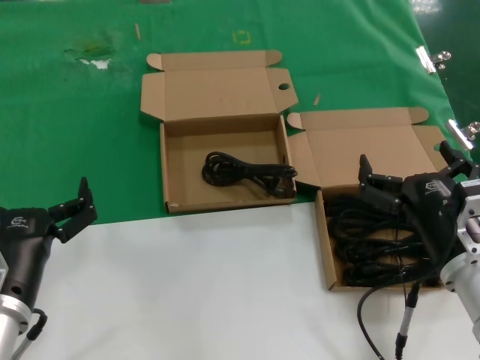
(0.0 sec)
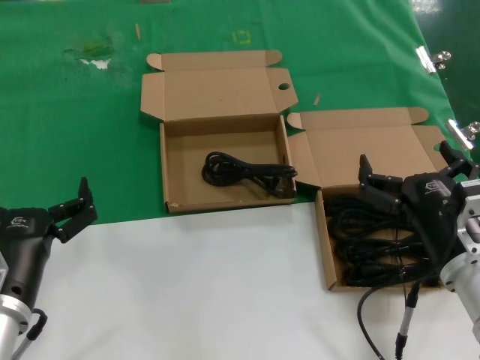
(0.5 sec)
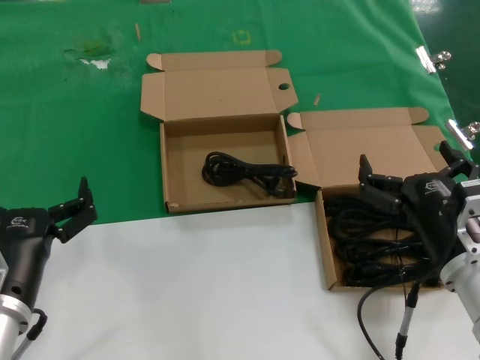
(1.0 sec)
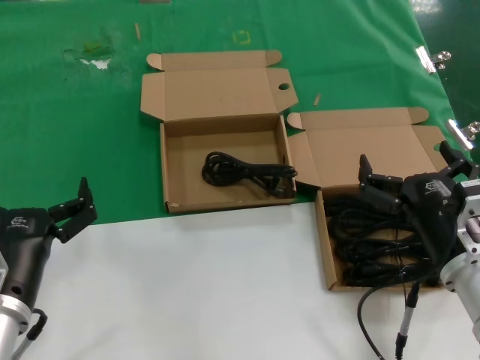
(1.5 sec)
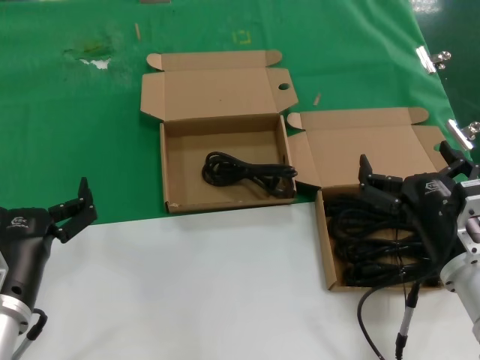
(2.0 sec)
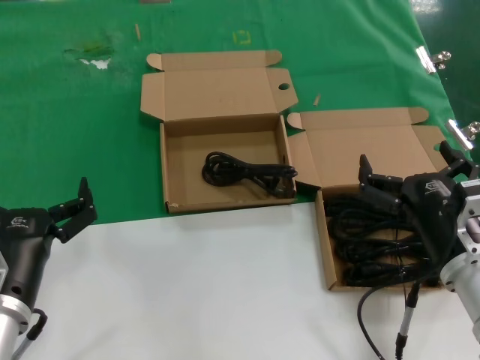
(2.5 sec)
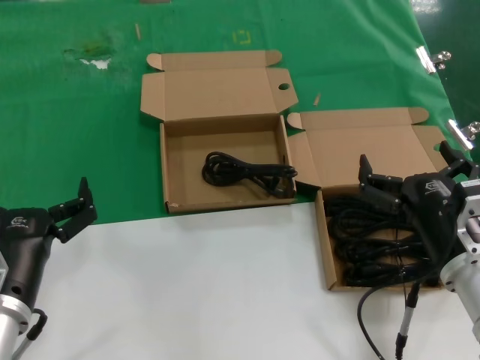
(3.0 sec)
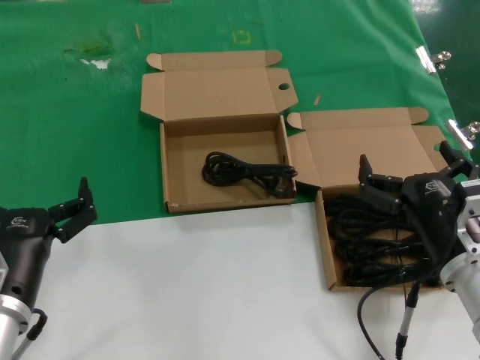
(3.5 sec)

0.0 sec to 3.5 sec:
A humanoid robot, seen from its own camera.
Task of the whole recording: take the parts from the box containing them and put them into an empty box.
0.0 sec to 3.5 sec: Both hands stay about where they are.
